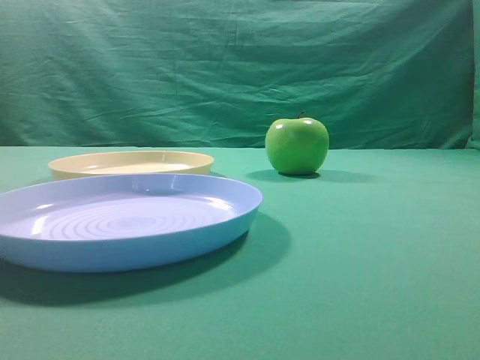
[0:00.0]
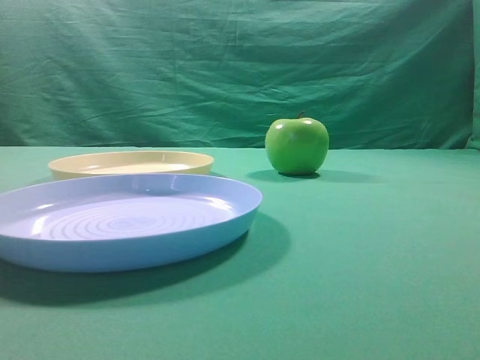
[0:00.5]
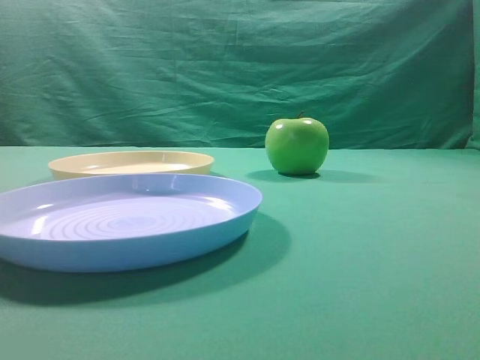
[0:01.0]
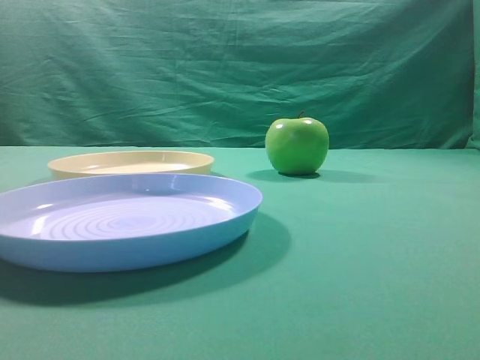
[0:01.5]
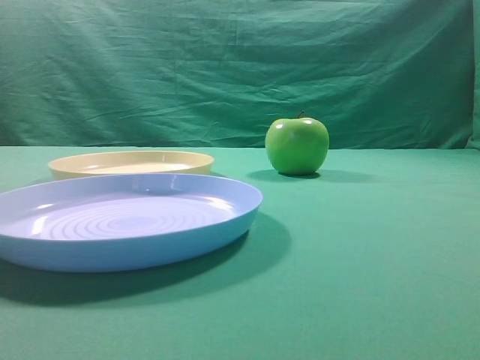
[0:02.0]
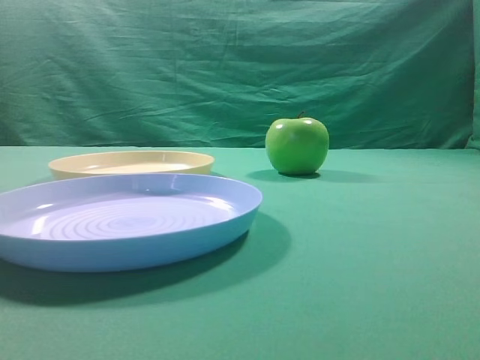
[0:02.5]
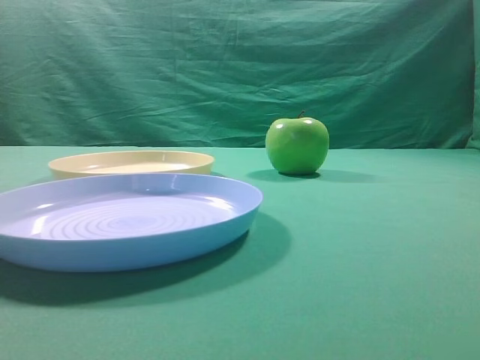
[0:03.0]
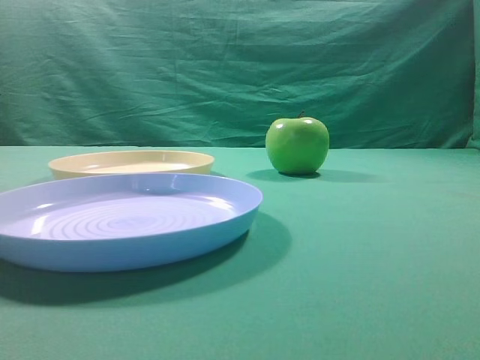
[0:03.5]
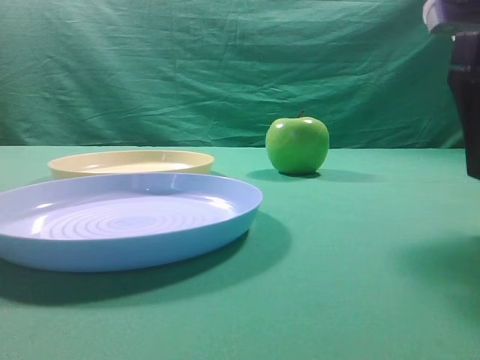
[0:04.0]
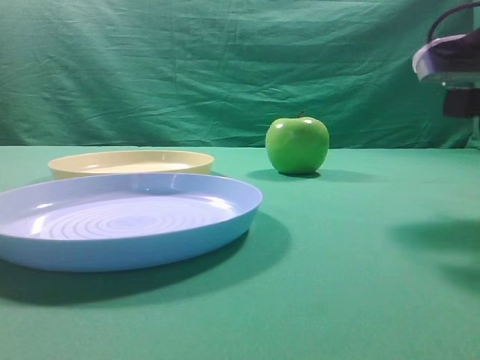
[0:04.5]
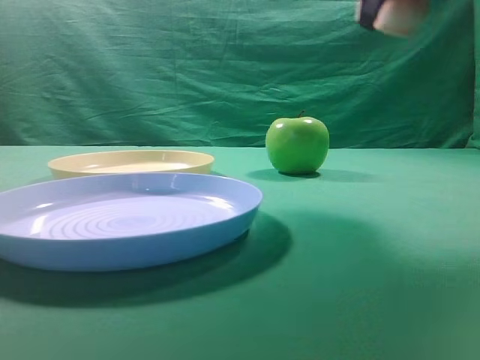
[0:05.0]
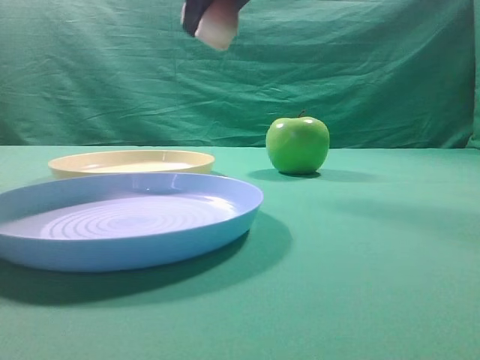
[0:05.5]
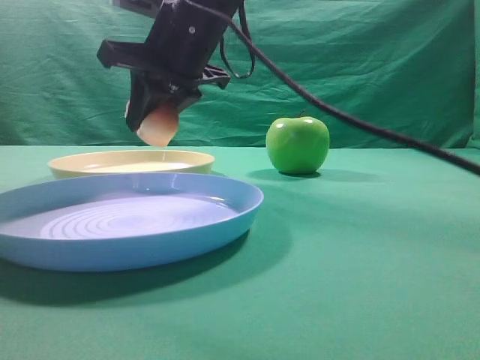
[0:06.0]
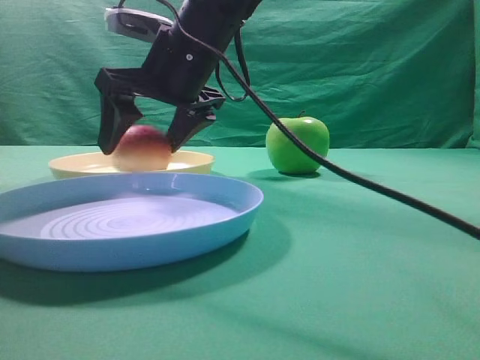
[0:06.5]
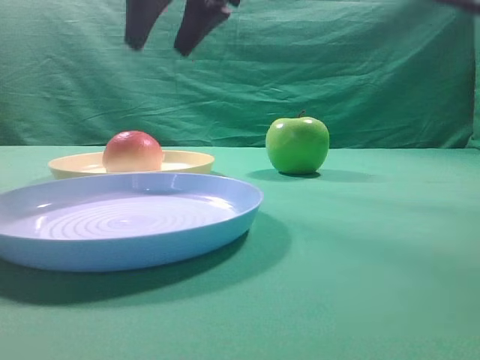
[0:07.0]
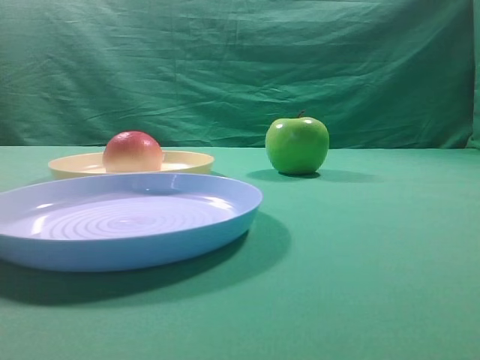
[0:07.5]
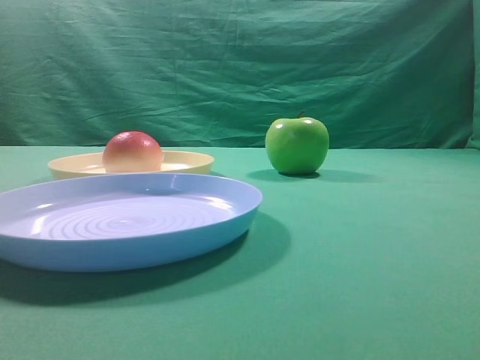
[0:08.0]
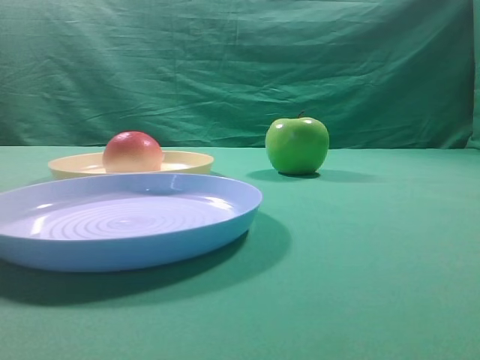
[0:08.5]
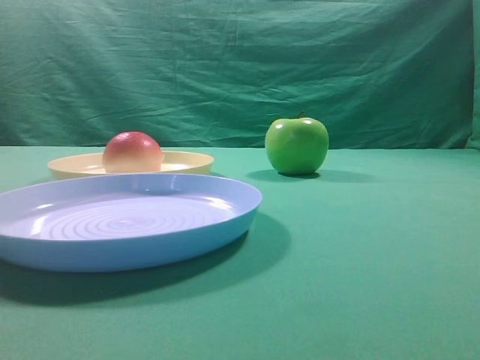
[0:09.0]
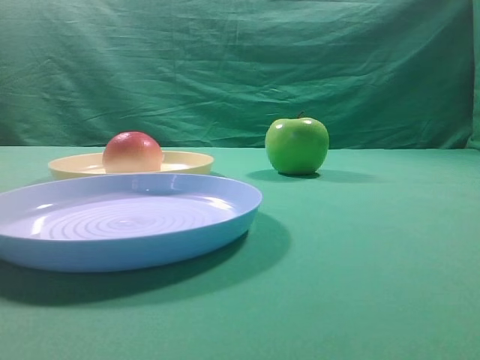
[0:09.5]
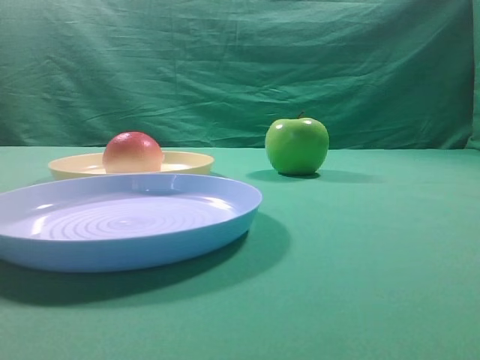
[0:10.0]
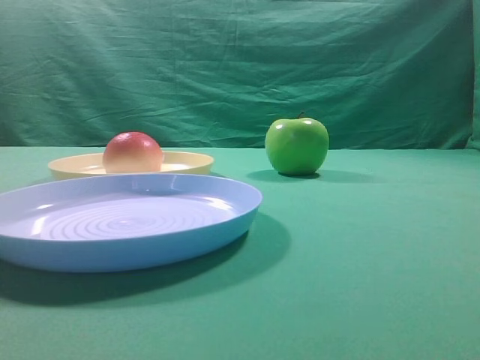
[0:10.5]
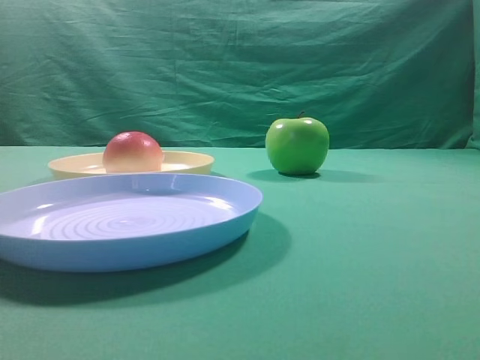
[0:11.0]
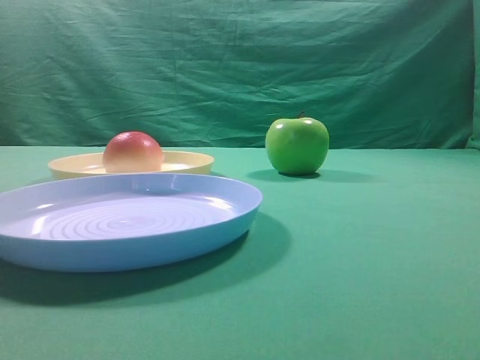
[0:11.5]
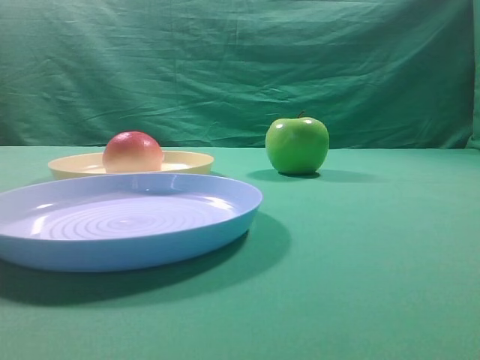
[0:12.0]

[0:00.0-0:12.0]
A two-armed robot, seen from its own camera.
Step, 0:05.0 to 0:06.5: Place the picked object on the yellow plate.

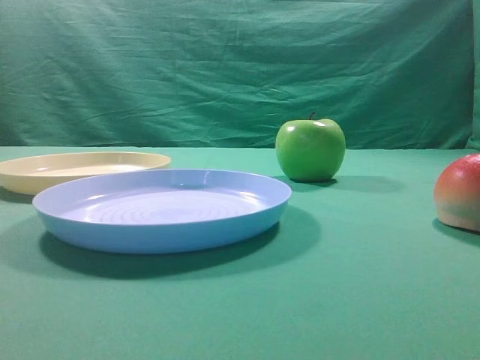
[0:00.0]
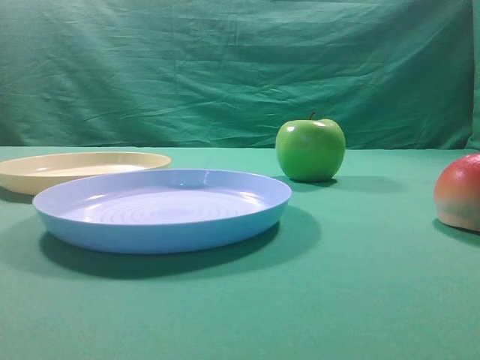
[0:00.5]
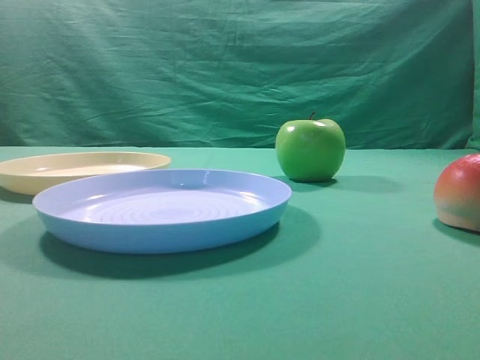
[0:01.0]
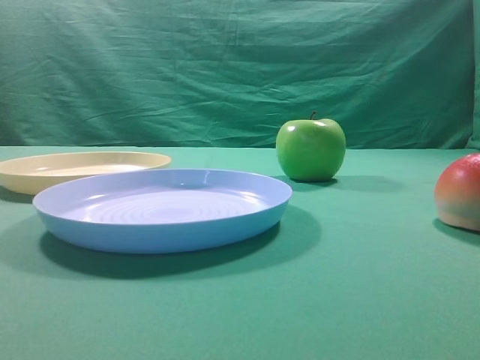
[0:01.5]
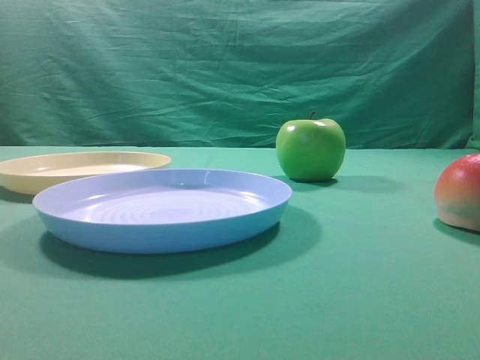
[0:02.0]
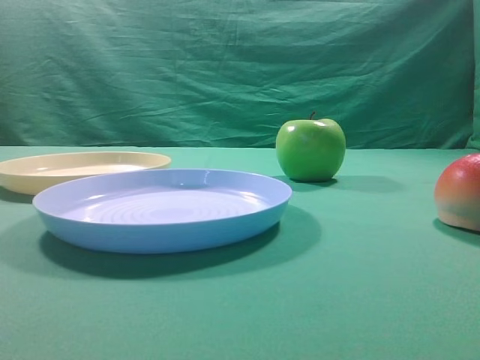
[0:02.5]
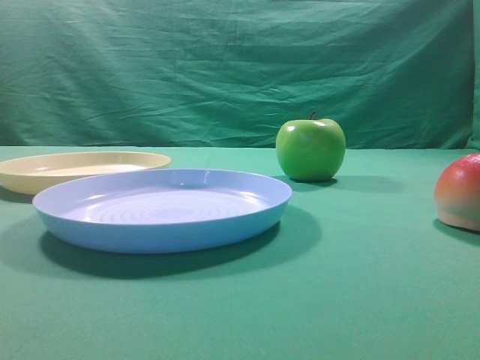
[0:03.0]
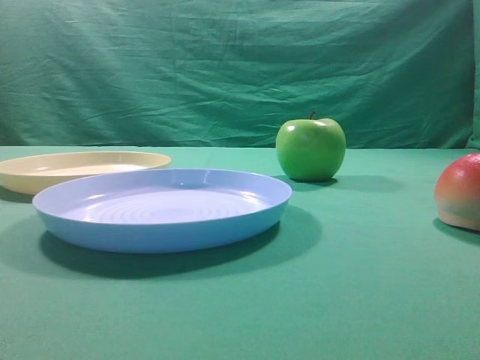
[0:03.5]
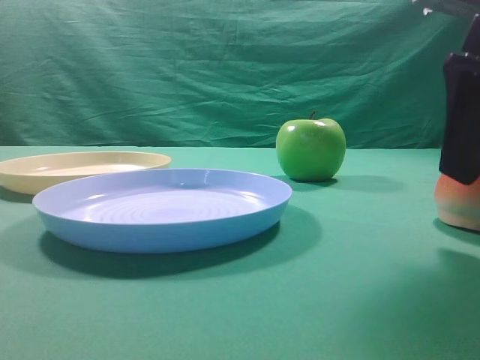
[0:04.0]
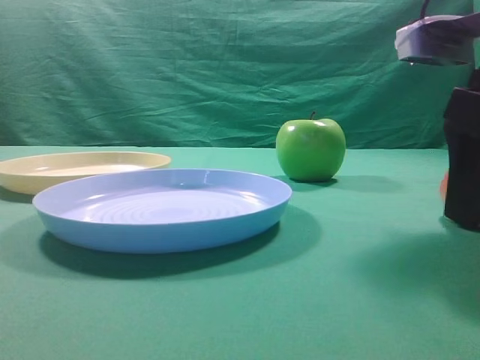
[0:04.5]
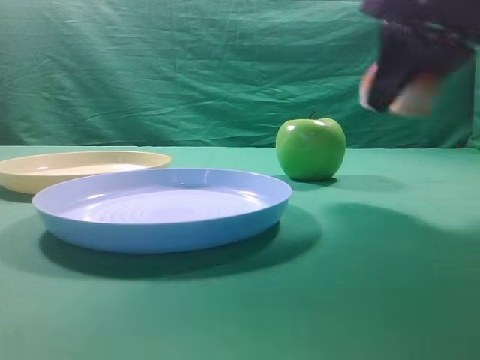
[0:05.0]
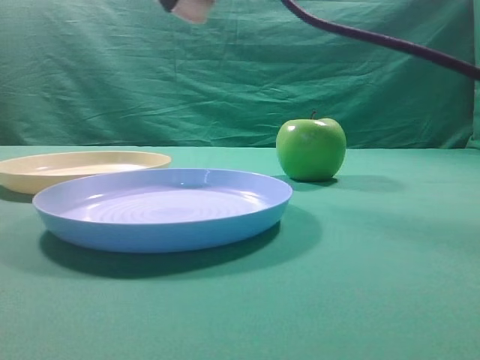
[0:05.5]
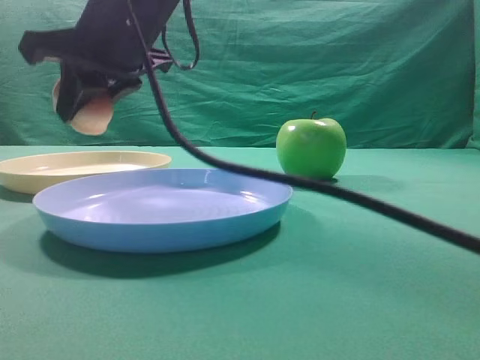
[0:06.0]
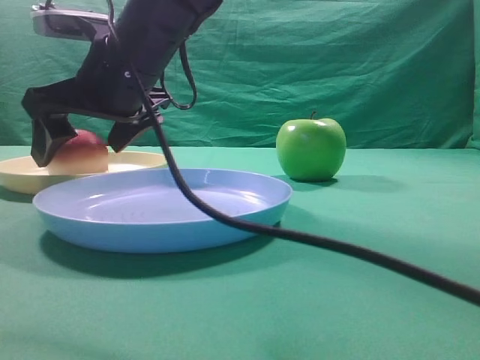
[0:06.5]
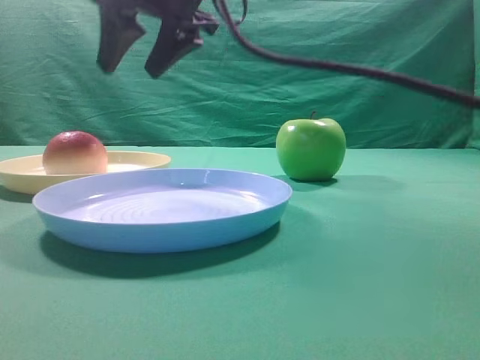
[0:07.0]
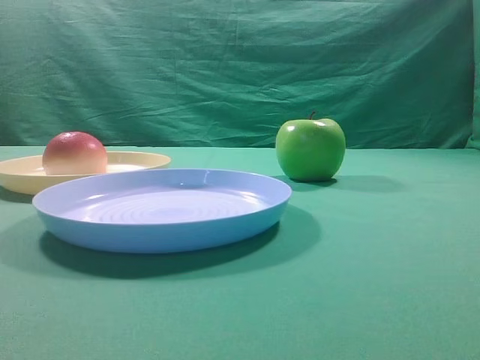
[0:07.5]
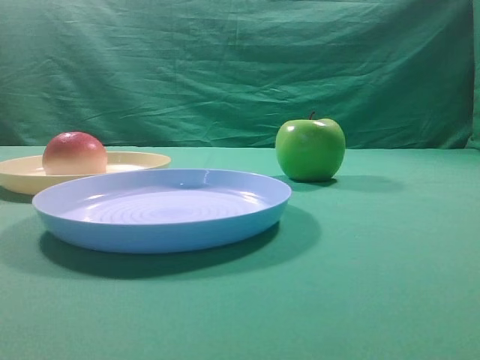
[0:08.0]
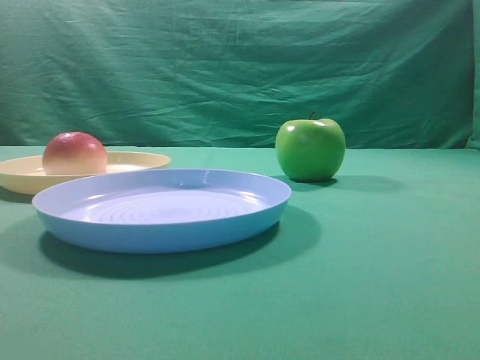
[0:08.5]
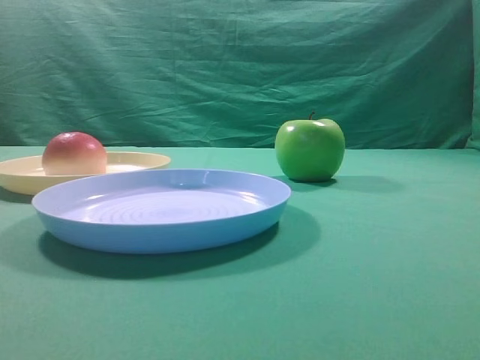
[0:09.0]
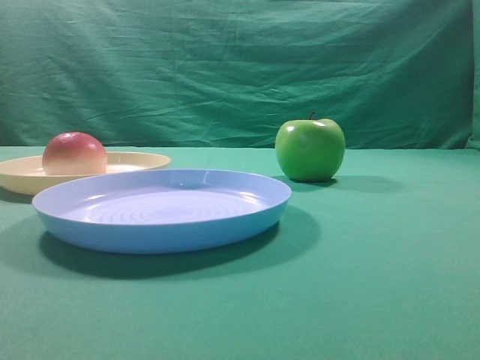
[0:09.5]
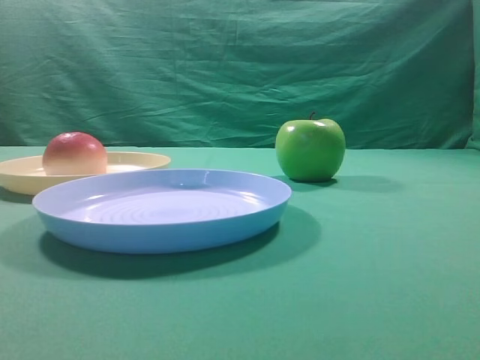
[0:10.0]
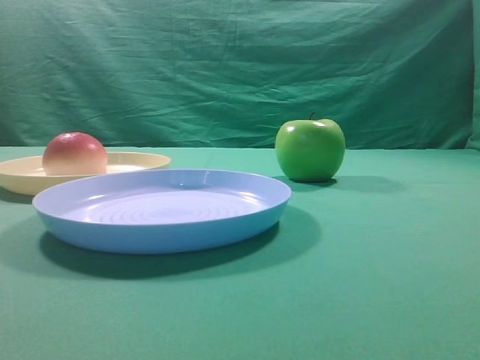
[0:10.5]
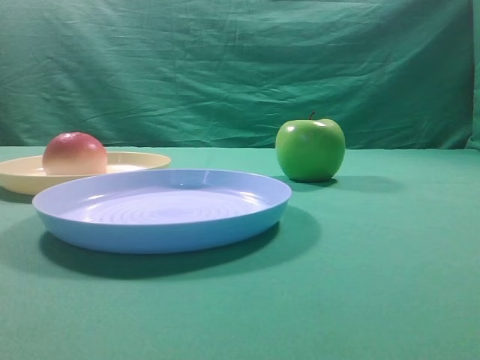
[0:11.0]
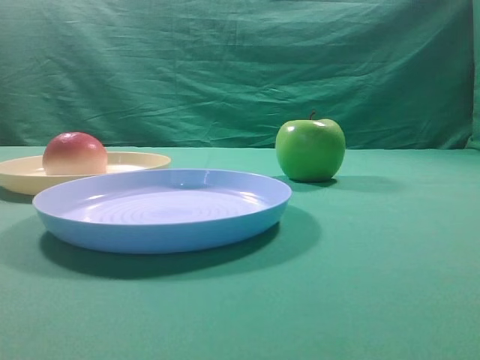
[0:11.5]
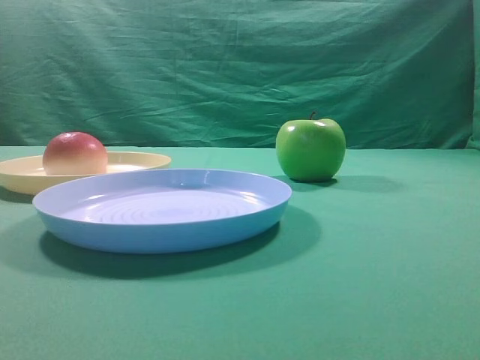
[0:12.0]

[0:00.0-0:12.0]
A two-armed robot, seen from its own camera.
Step, 0:05.0 to 0:06.5: Place the picked object on the yellow plate.
